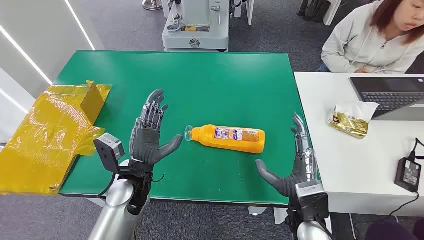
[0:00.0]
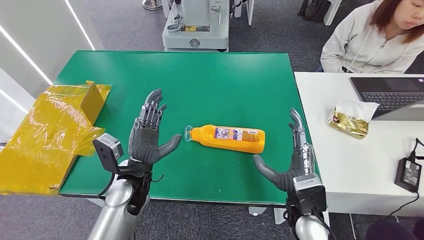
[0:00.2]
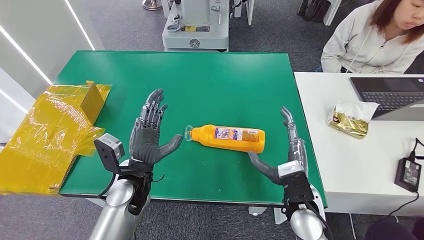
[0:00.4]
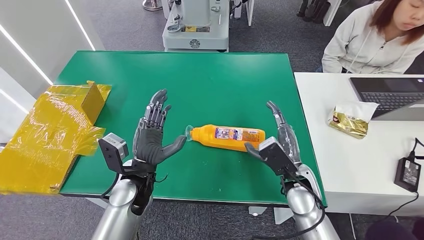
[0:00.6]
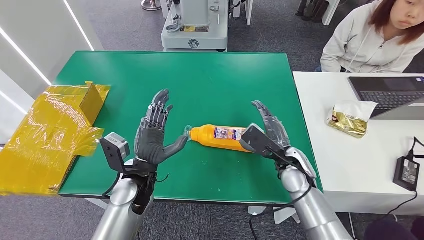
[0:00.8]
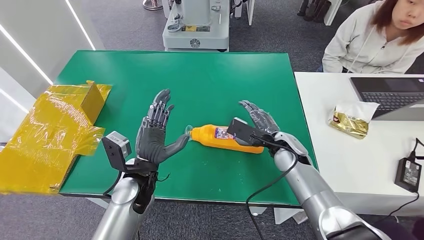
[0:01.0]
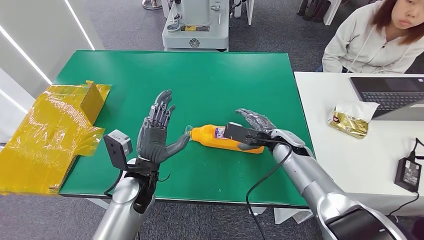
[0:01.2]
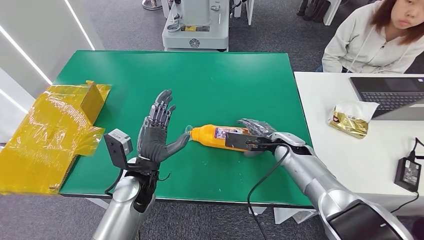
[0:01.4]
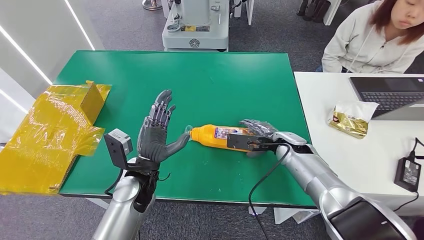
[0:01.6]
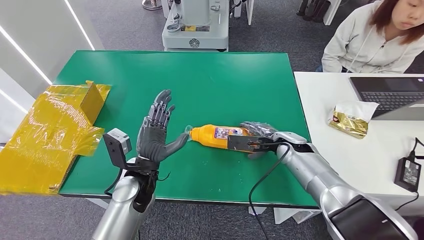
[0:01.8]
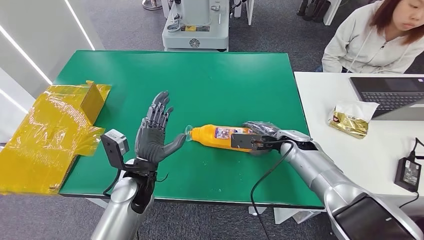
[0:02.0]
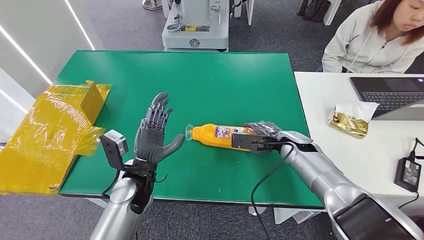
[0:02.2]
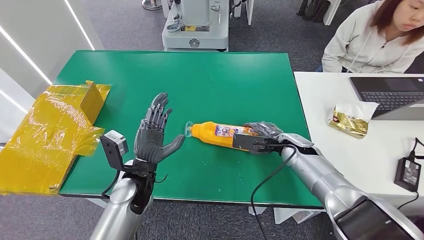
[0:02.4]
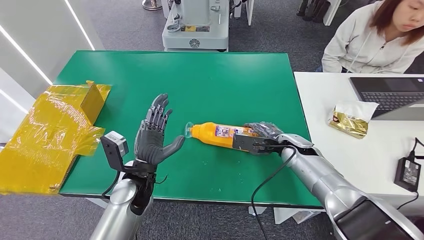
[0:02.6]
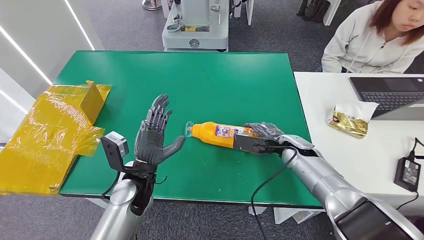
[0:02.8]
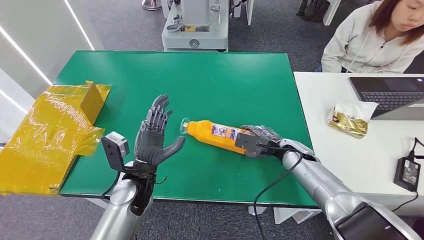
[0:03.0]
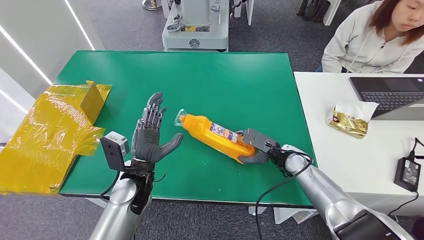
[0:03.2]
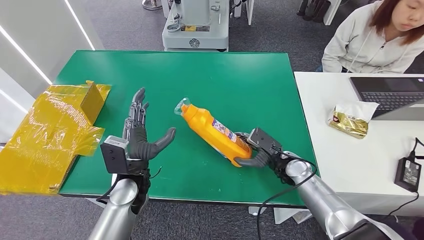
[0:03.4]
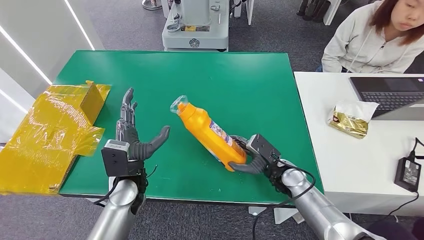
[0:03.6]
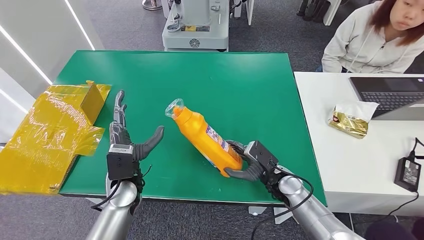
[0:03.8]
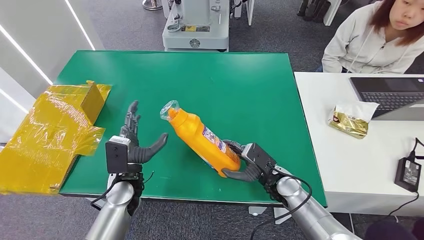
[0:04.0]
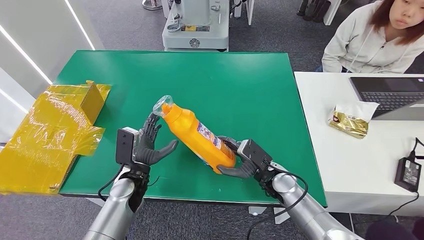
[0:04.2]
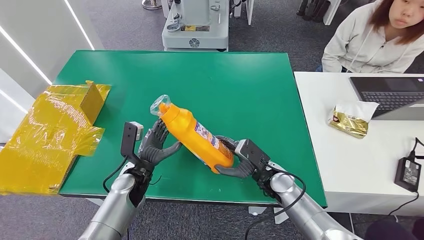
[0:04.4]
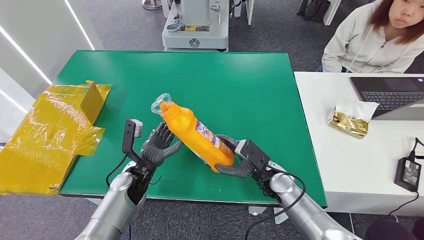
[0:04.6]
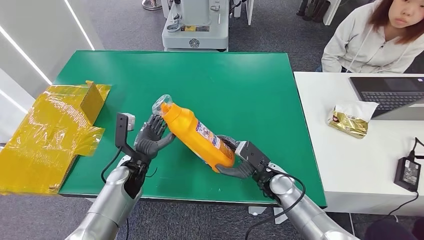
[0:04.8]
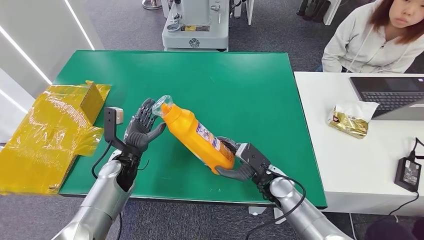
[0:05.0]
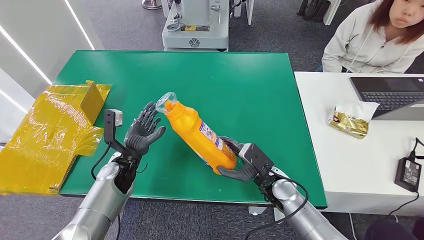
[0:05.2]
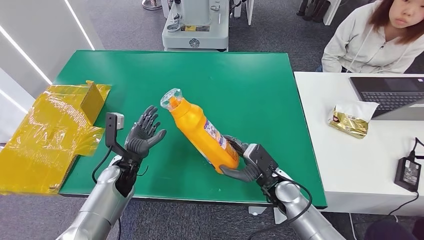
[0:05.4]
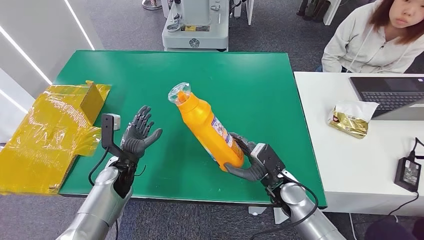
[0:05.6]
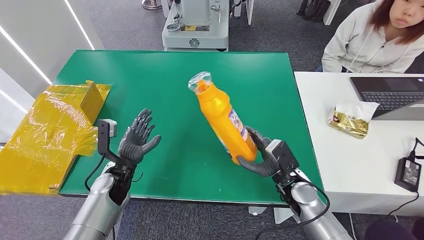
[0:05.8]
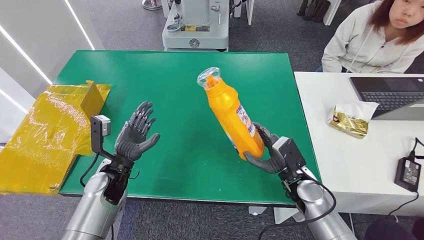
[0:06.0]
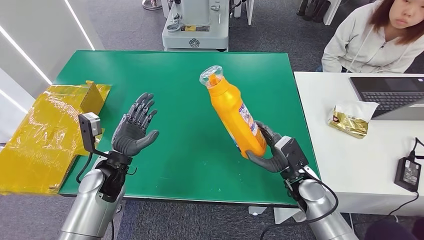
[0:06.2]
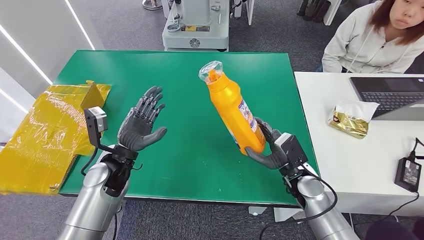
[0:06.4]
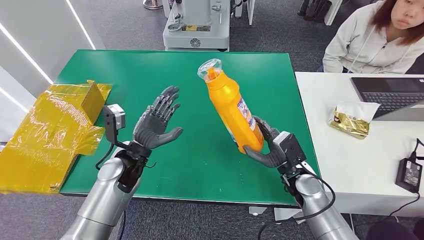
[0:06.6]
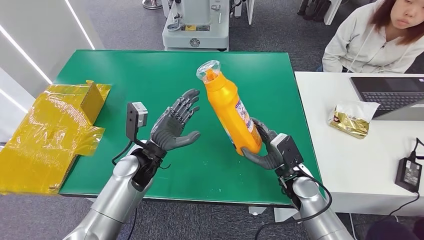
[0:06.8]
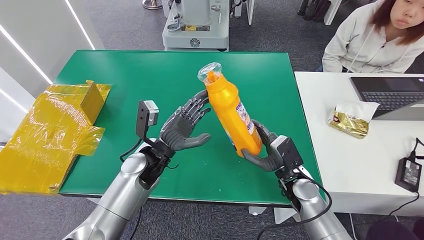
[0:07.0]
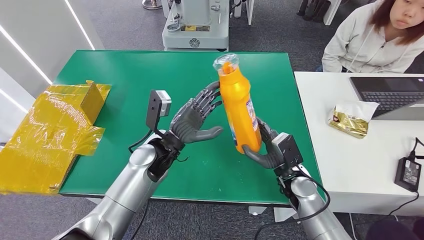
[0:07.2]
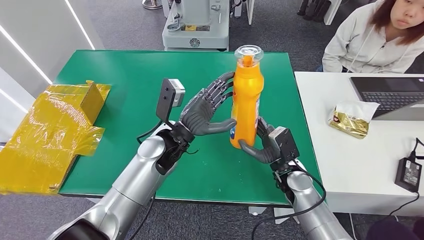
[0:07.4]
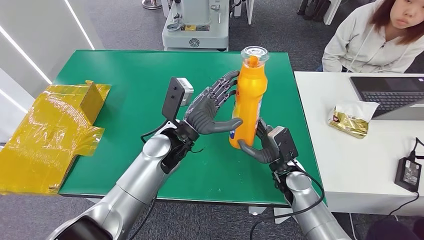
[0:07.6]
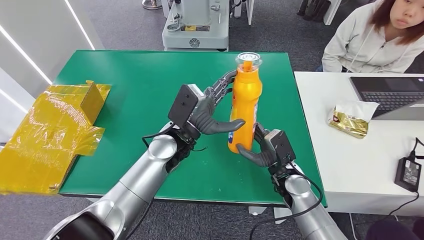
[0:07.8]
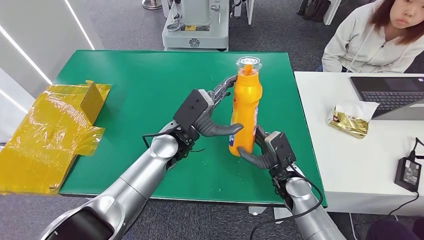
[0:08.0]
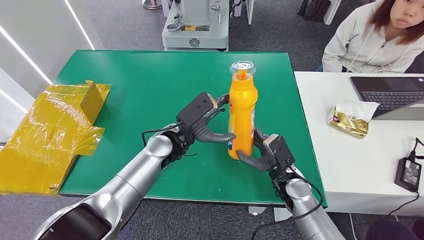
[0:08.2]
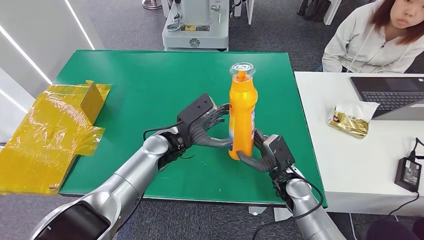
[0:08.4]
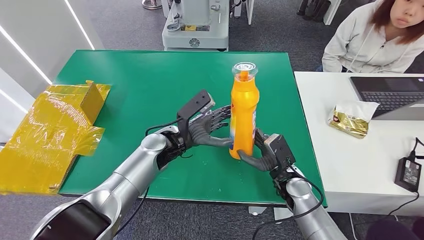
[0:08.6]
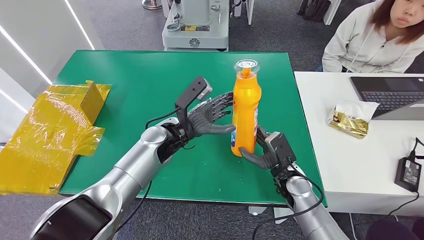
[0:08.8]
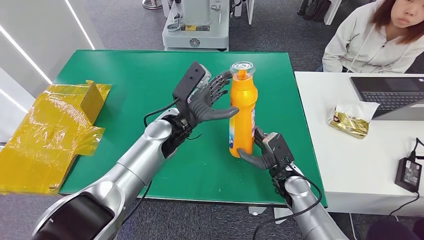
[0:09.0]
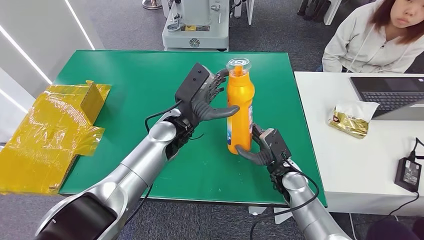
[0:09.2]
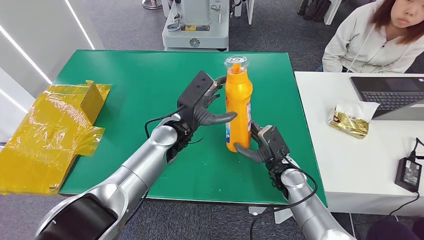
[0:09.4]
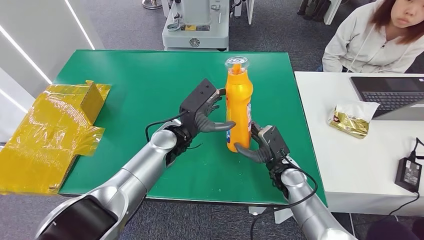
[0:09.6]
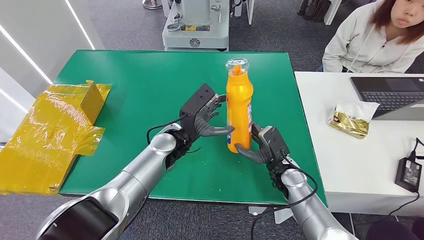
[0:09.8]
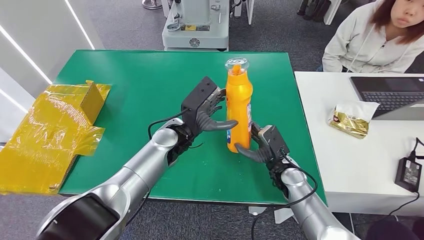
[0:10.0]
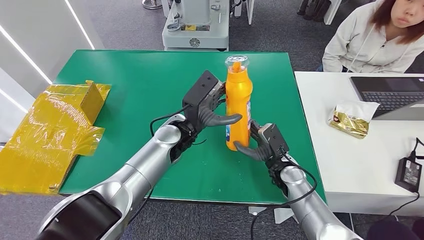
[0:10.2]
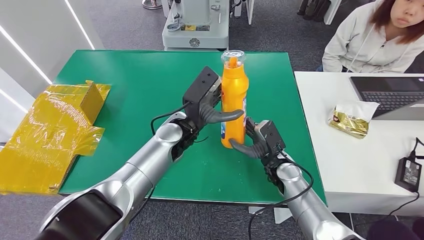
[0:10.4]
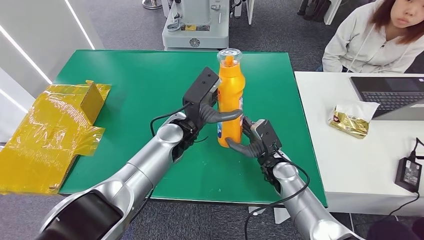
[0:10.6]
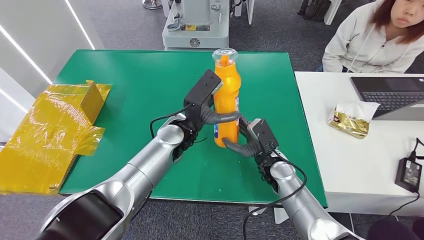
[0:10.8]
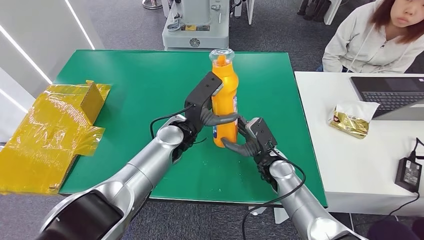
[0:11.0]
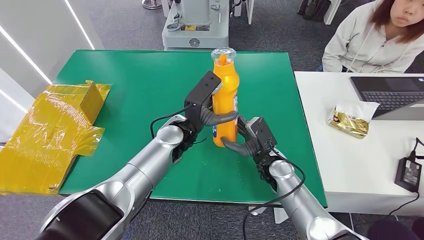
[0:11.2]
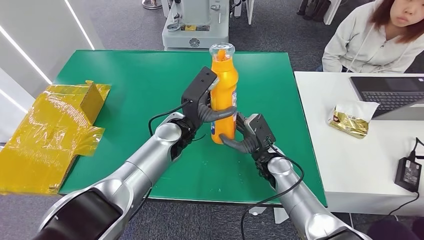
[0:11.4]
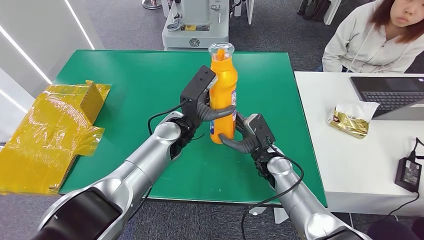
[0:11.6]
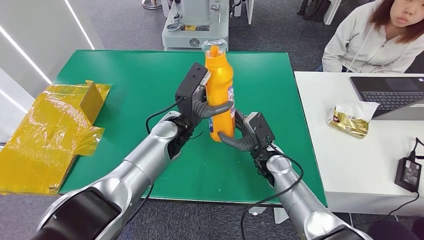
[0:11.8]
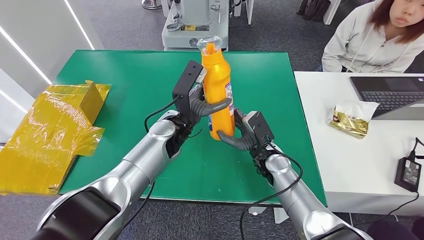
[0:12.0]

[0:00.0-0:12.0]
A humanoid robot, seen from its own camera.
Step, 0:00.0 to 0:04.0: Pick up the bottle from the table.
0:01.6 to 0:03.0: There are only small adjustments of the hands.
0:03.0 to 0:04.4: The right hand shifts roughly 10 cm backward and to the left, while the left hand shifts approximately 5 cm downward.
0:04.4 to 0:06.0: The right hand travels to the right by about 5 cm; the left hand ends up about 5 cm from where it was.
0:06.0 to 0:07.6: The left hand goes roughly 20 cm to the right and upward.
0:09.0 to 0:10.4: There are only small adjustments of the hands.
0:10.4 to 0:12.0: There are only small adjustments of the hands.

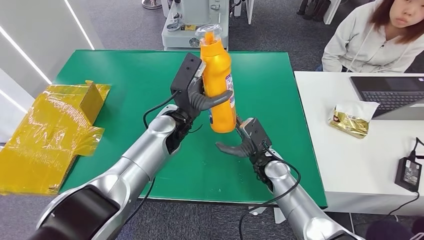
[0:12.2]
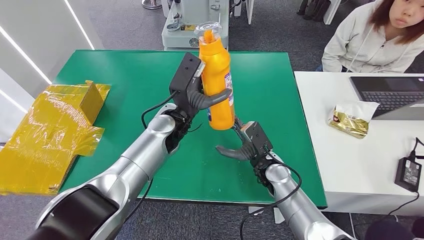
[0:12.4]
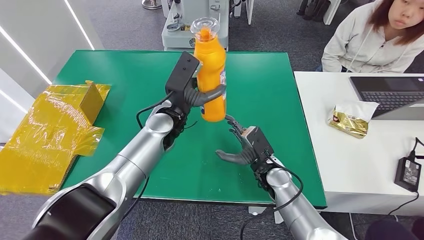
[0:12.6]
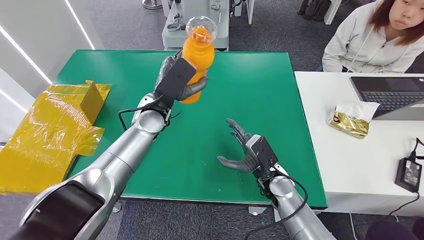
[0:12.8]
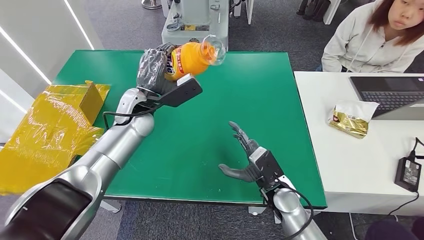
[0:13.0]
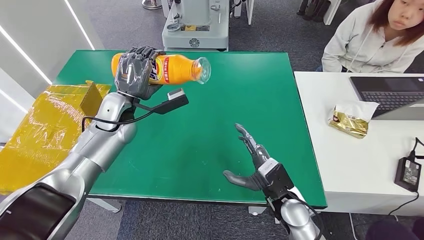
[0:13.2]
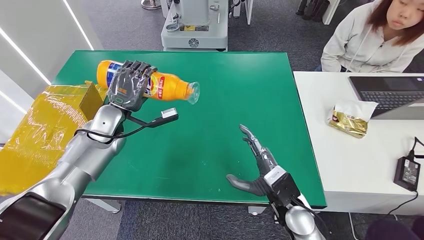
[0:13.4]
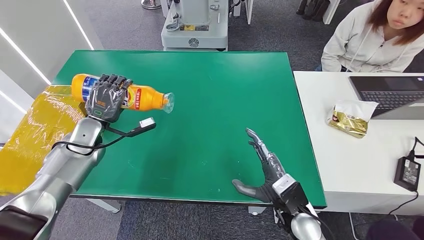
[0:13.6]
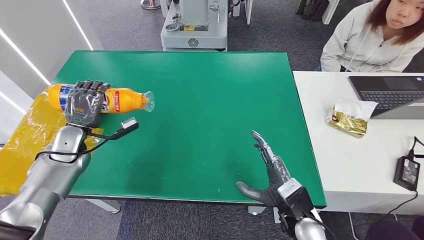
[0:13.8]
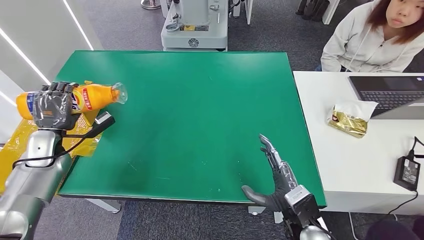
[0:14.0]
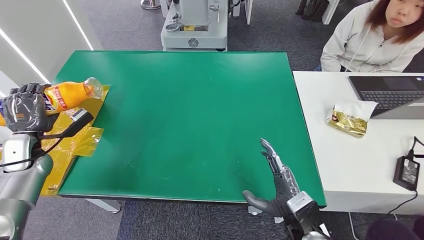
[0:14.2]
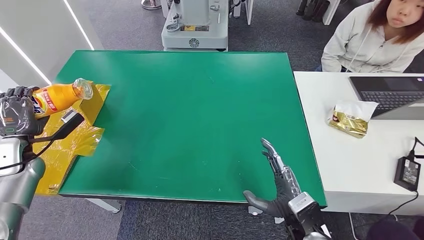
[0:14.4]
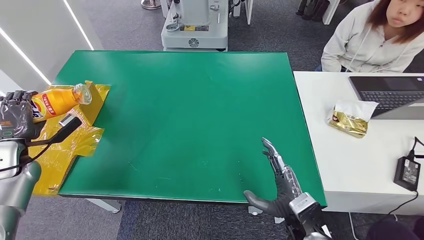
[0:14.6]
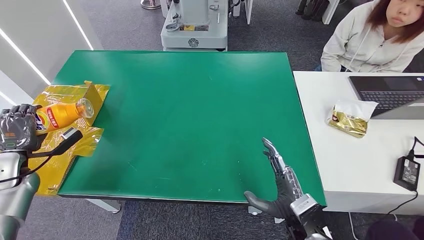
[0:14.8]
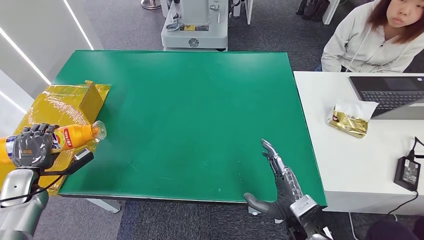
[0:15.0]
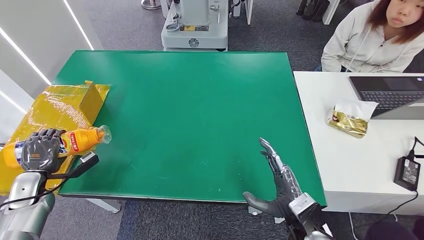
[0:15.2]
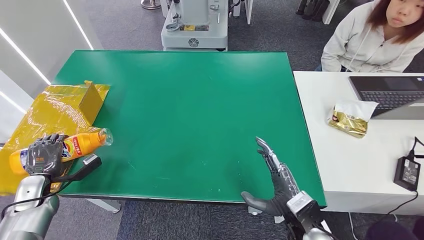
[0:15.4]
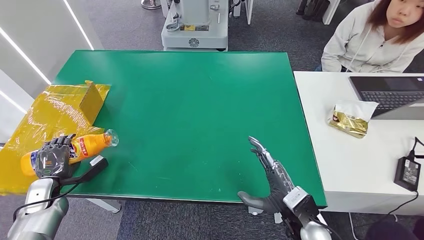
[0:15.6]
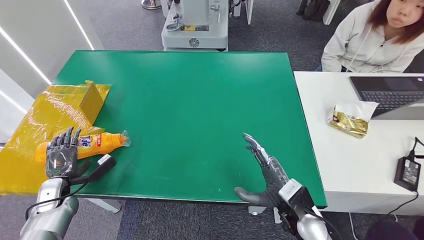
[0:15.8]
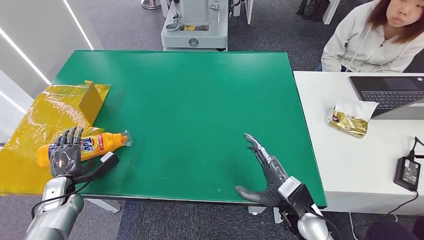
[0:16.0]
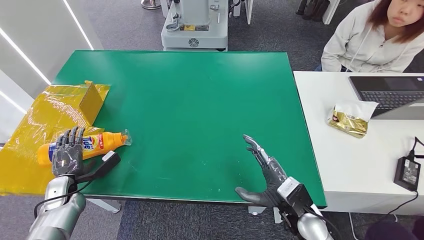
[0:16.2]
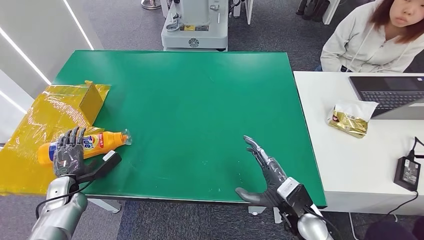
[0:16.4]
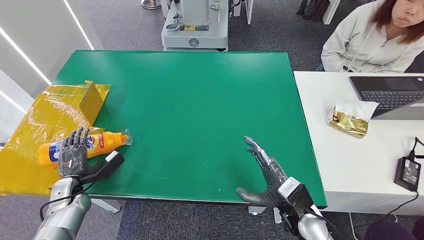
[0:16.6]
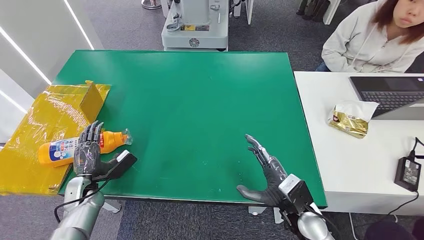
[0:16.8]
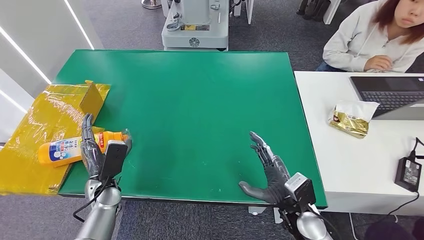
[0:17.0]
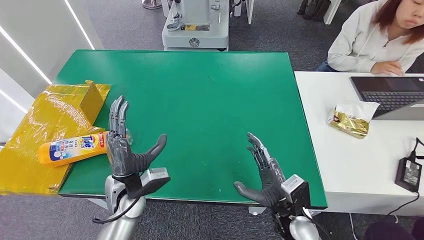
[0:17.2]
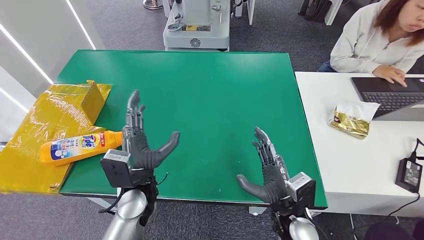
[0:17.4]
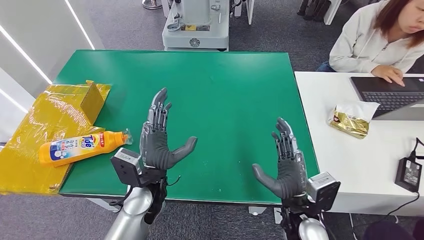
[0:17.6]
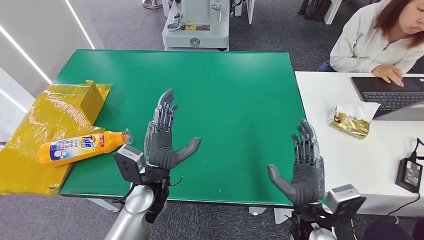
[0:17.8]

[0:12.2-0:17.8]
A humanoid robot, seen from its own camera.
Step, 0:12.2 to 0:17.8: Turn the bottle to the front side.
0:13.6 to 0:15.0: The left hand goes some 20 cm to the left, backward and downward.
0:15.0 to 0:16.4: The left hand moves to the right and downward, approximately 10 cm.
